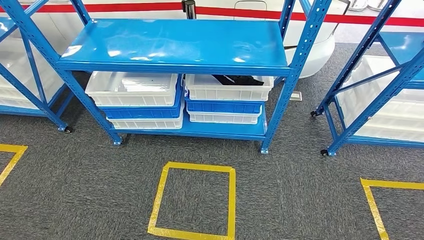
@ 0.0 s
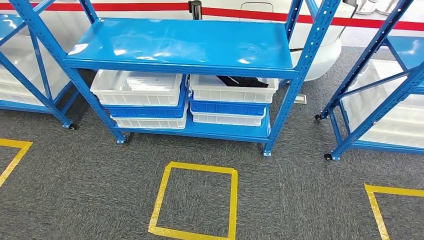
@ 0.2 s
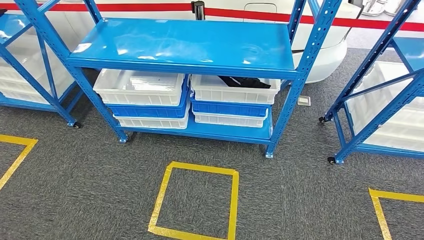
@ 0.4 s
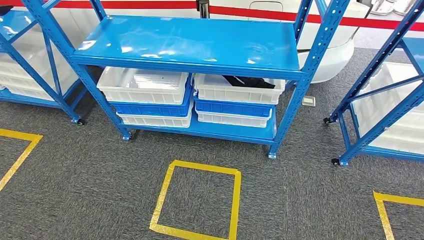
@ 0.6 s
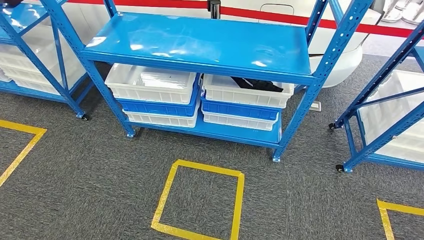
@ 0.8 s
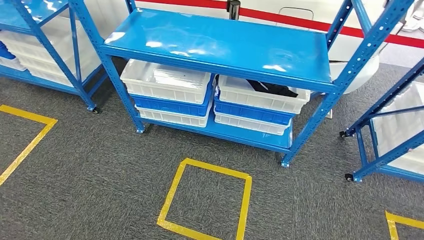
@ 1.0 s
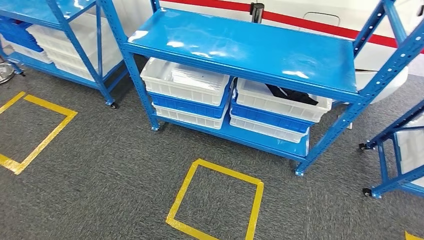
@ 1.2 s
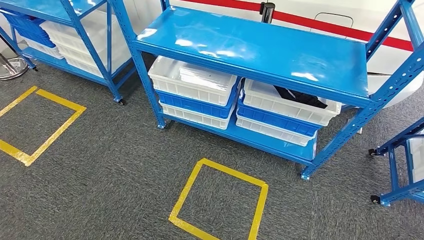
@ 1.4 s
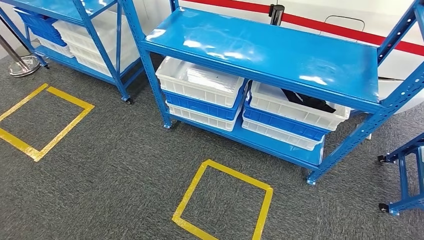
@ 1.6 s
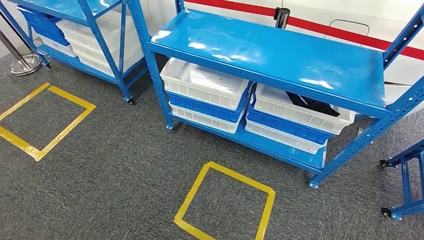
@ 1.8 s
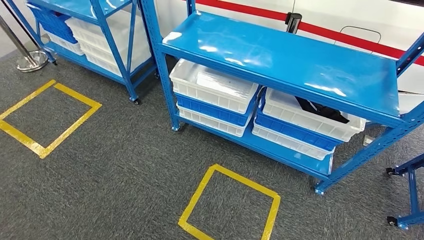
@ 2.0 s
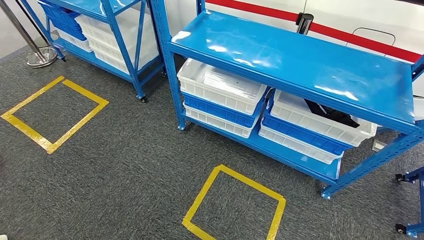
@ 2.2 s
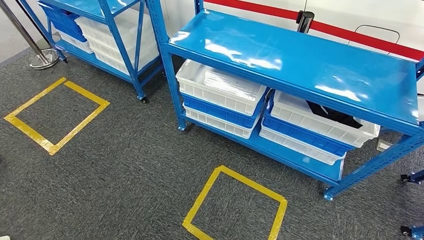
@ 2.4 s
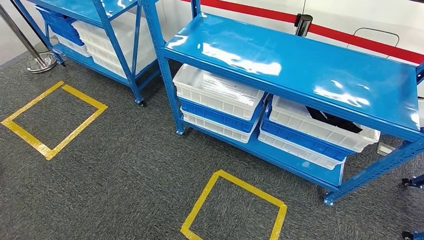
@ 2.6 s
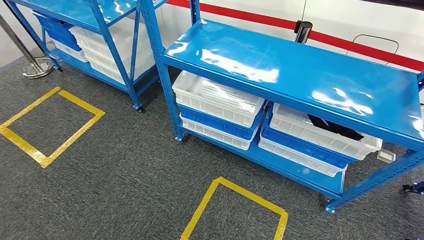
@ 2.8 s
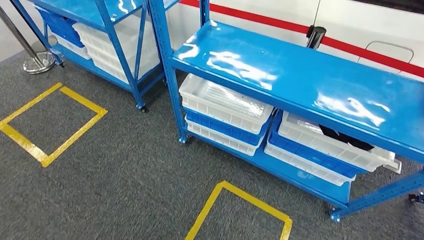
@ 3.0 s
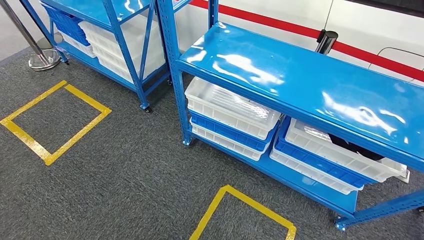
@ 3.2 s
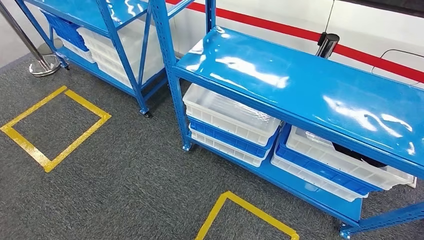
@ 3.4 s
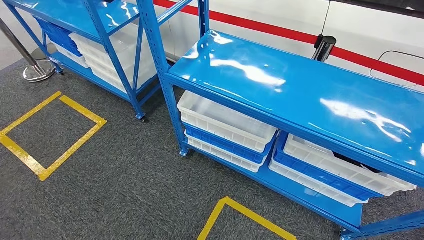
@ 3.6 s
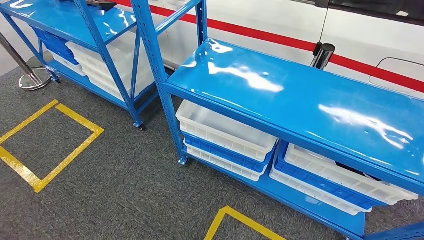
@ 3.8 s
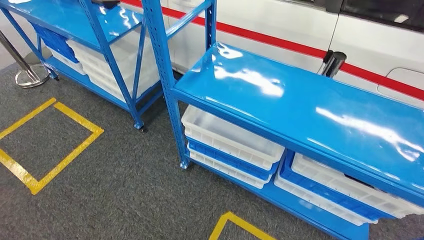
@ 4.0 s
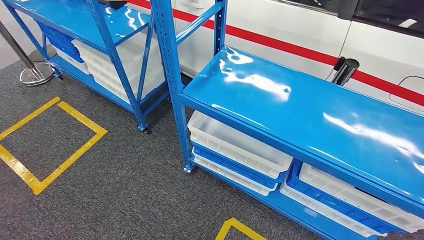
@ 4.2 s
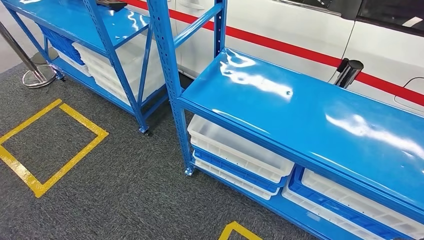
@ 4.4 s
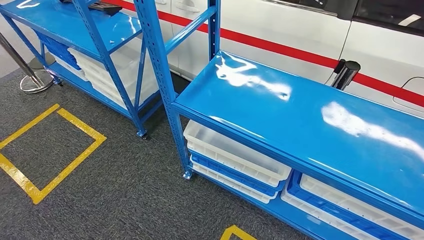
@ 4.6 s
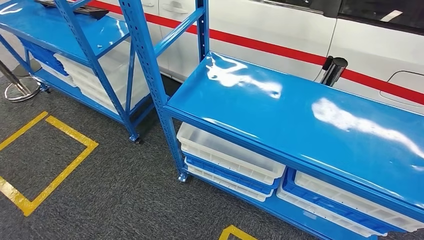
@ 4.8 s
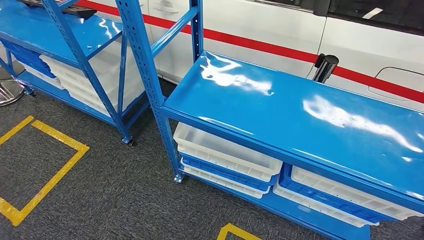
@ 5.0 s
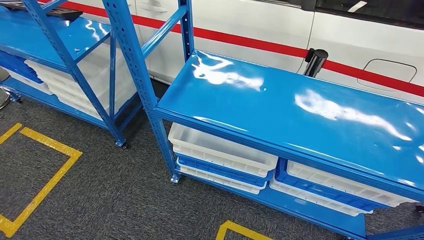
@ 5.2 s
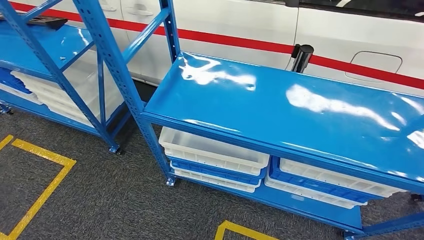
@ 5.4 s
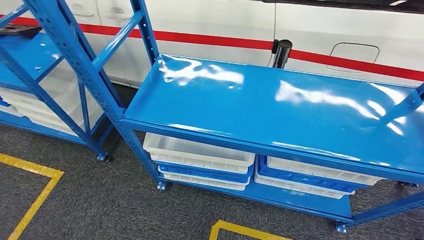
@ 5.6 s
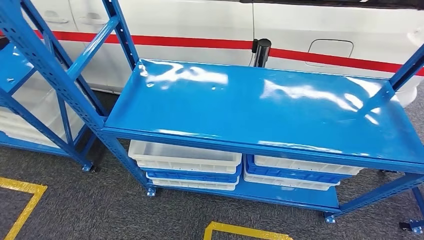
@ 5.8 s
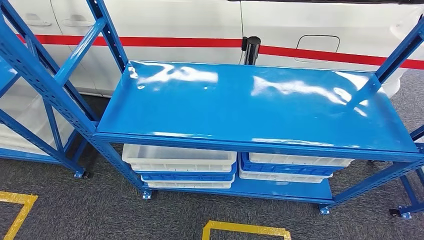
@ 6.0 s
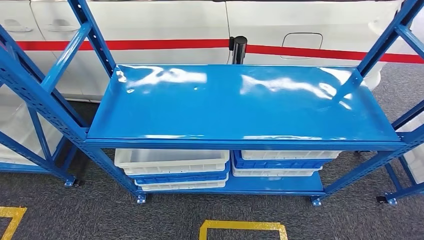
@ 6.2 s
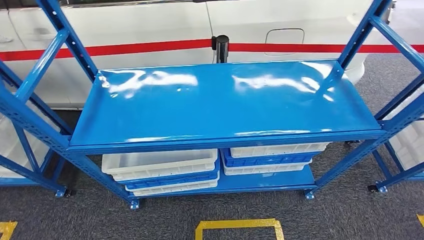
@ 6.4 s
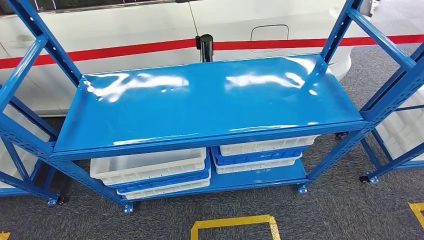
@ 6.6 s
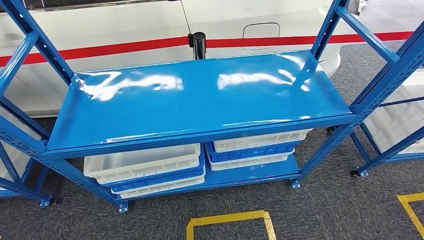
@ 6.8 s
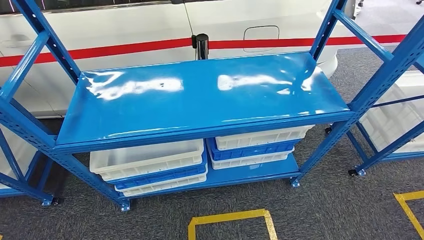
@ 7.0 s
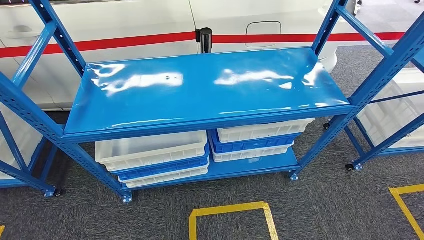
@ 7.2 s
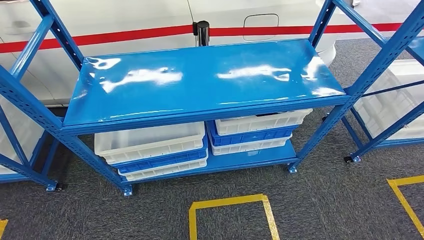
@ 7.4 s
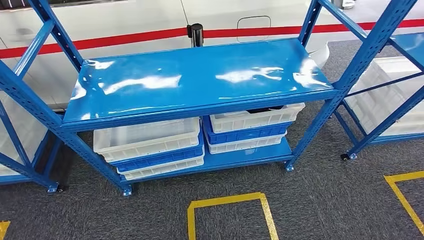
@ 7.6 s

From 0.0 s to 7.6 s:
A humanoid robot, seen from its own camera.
Step, from 0.0 s to 7.4 s: Return to the initial position at the shelf.
